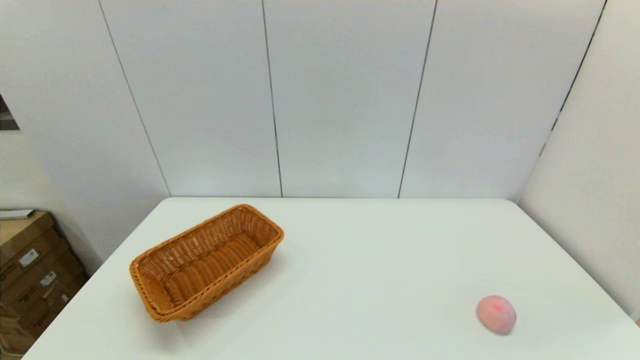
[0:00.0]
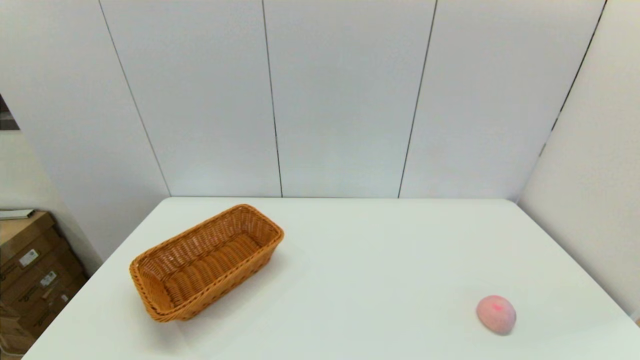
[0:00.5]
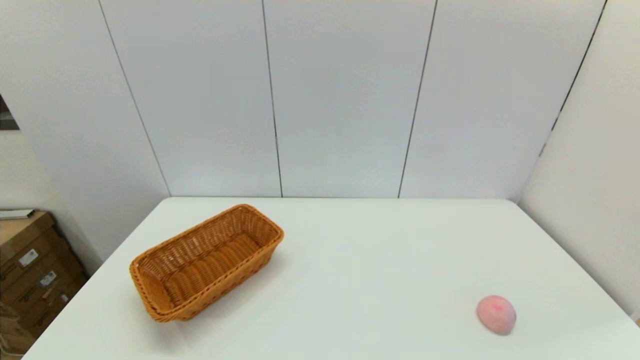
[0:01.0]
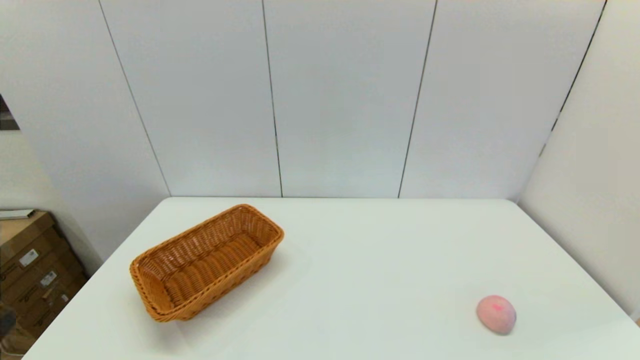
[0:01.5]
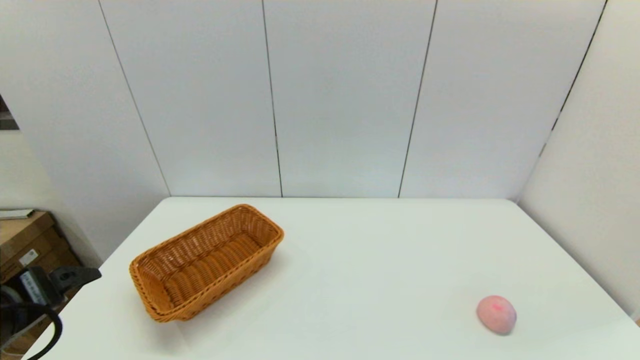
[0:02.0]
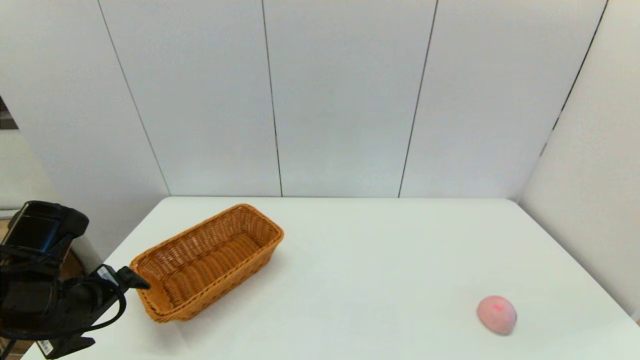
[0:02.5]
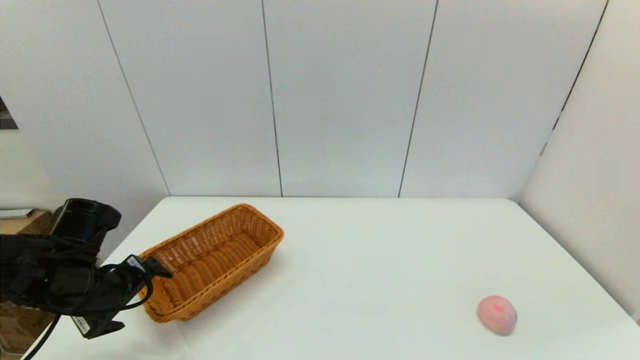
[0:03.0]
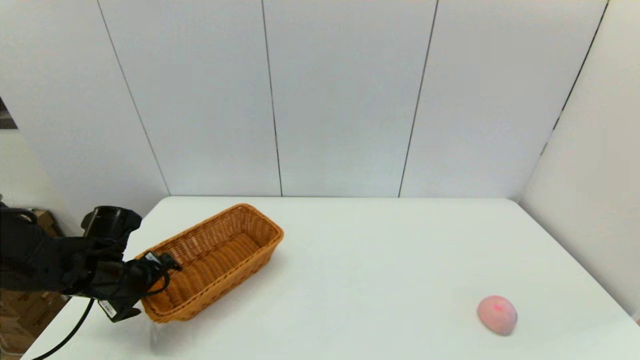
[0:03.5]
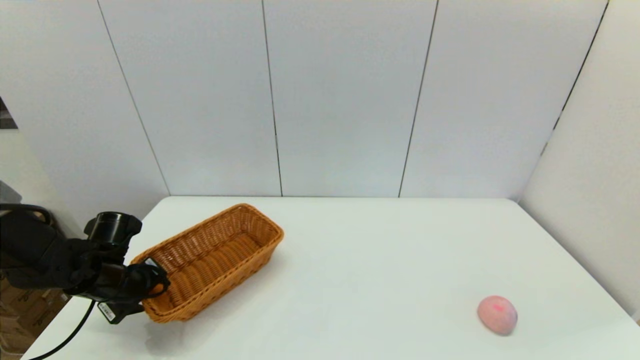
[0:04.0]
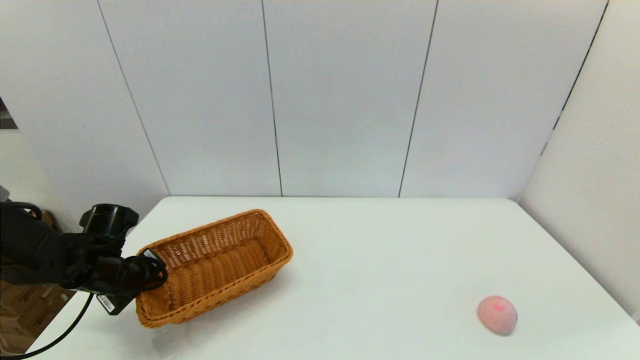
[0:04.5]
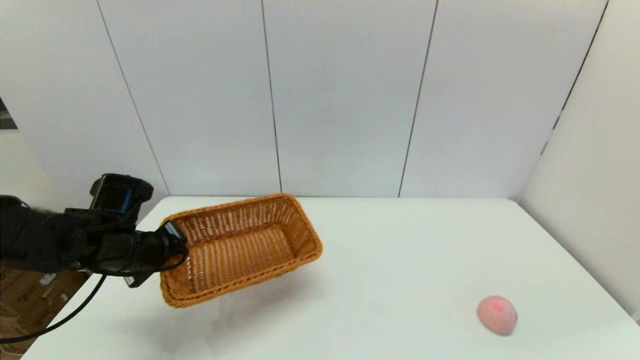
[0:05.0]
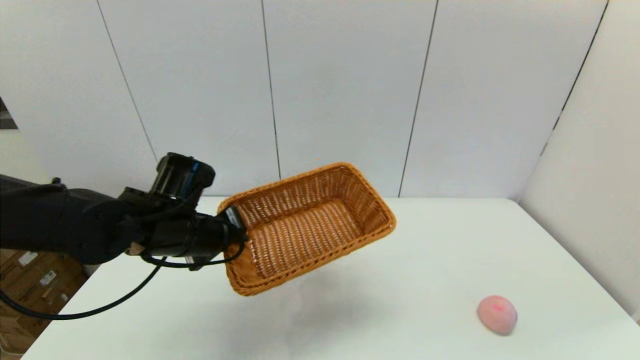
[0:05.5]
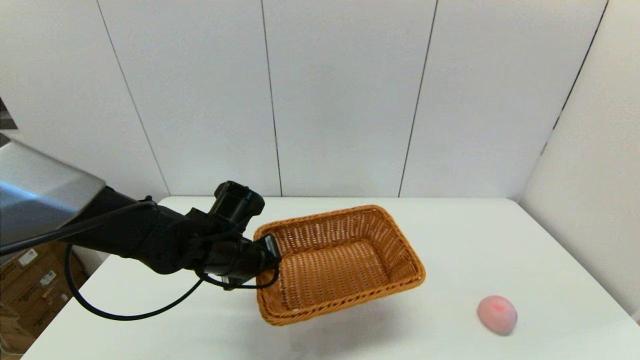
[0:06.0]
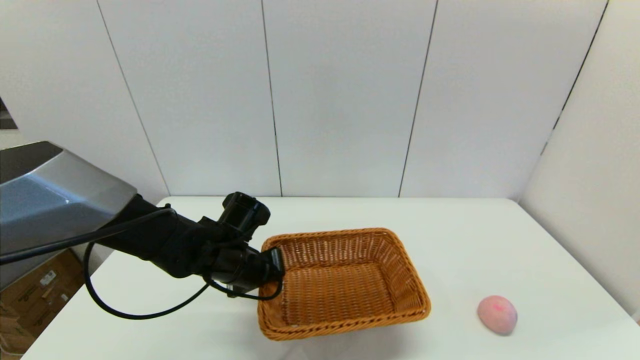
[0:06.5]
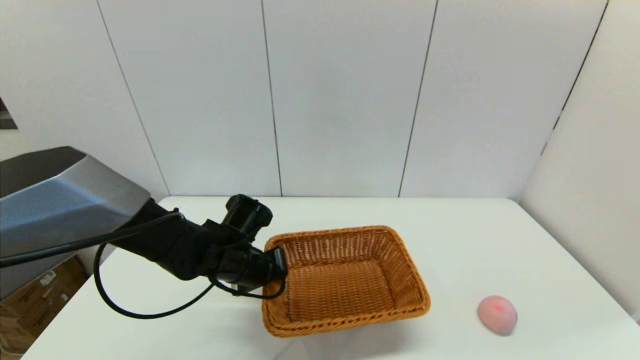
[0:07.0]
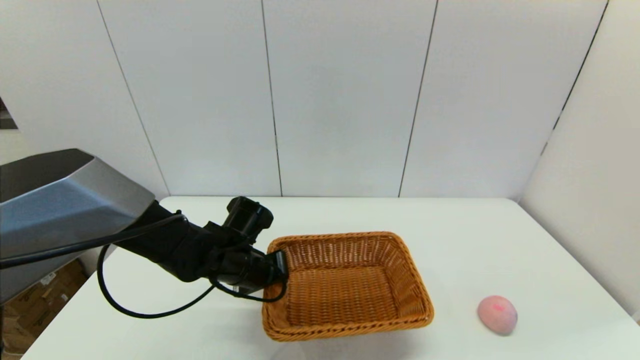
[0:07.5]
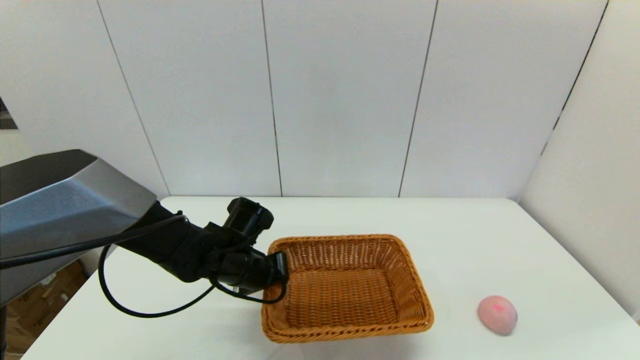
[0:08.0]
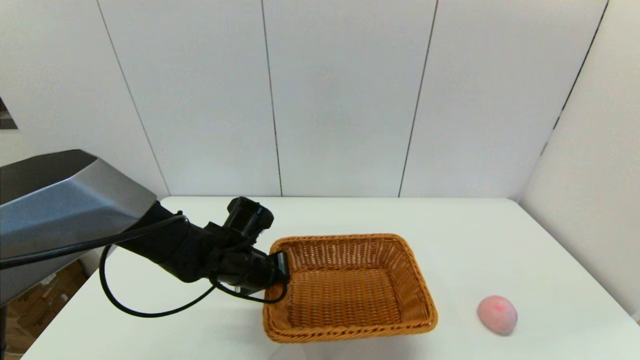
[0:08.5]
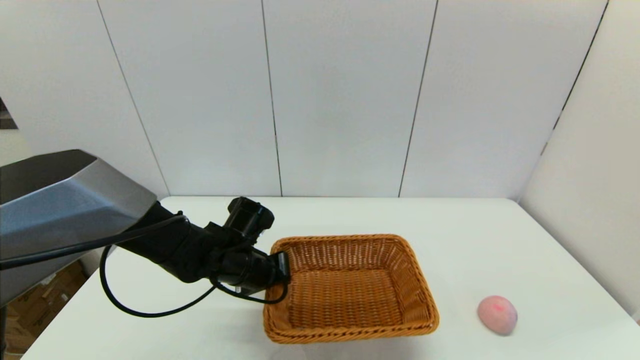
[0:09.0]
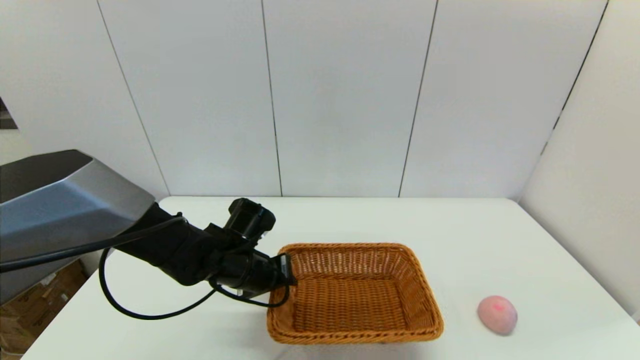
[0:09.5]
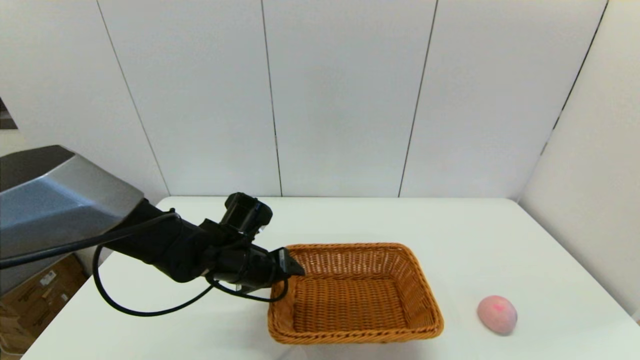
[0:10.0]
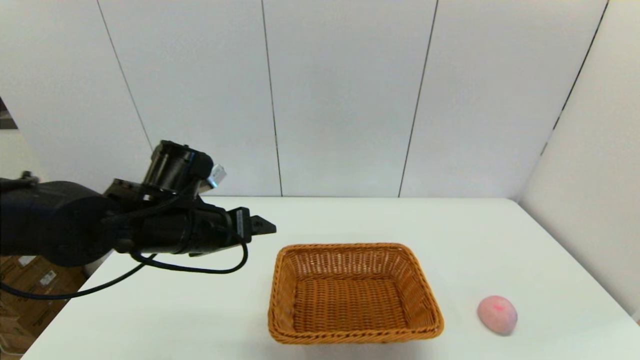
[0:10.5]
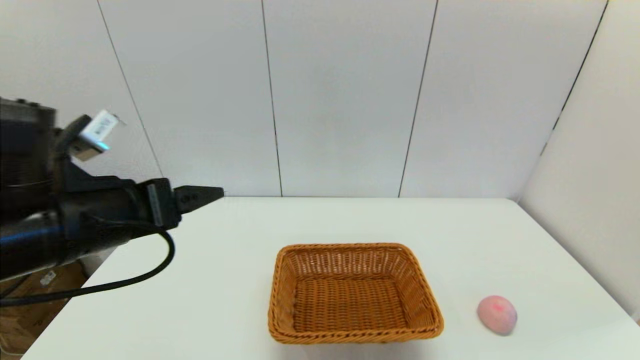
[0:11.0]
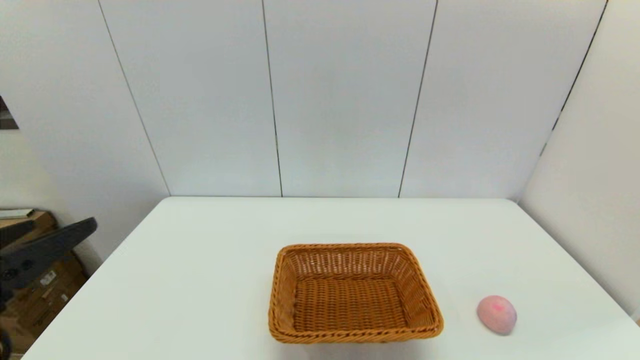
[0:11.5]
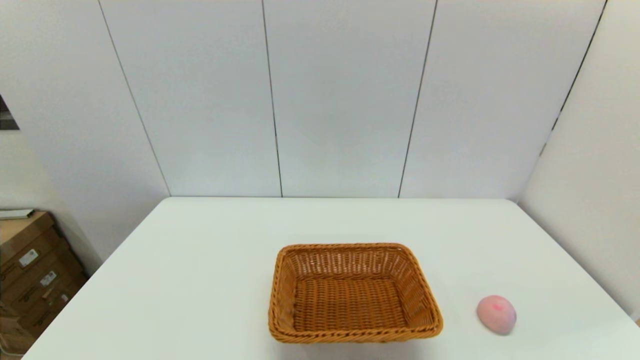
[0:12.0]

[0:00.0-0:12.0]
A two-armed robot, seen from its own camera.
Step, 0:00.0 to 0:04.0: Grasp the light basket with the left gripper.
Step, 0:04.5 to 0:09.5: Place the light basket on the middle of the table with the left gripper.
0:00.0 to 0:02.0: The left gripper is displaced forward and upward by approximately 20 cm.
0:02.0 to 0:04.0: The left gripper travels forward and downward by some 20 cm, and closes.
0:04.0 to 0:06.0: The left gripper heads to the right, covering some 20 cm, and closes.
0:06.0 to 0:08.0: The grippers make only small movements.
0:08.0 to 0:10.0: The left gripper opens up.
0:10.0 to 0:12.0: The left gripper shifts about 35 cm backward, to the left and upward.

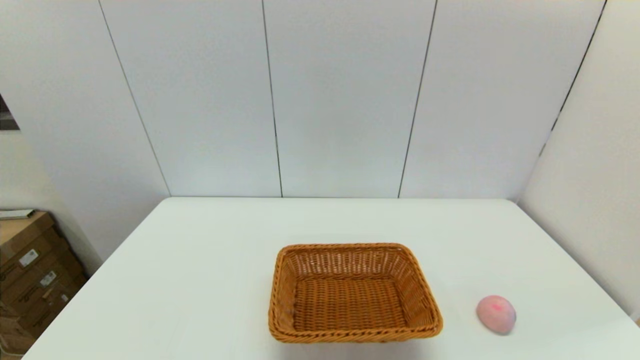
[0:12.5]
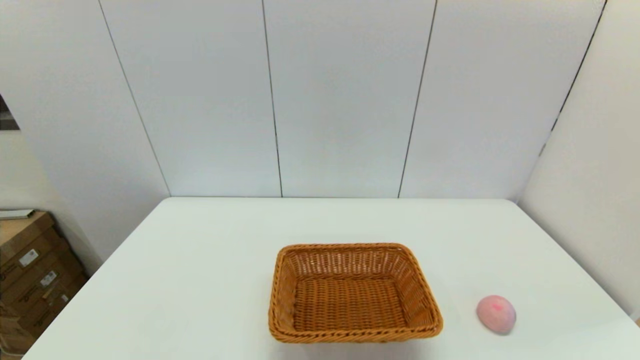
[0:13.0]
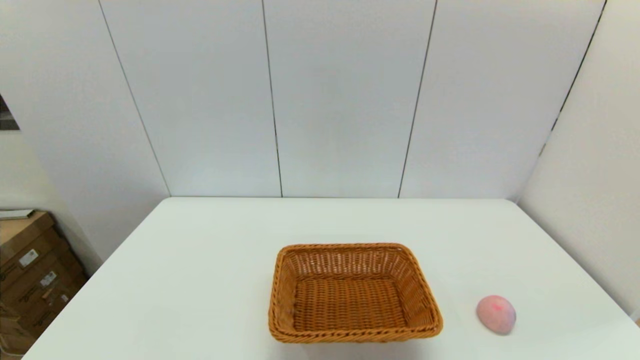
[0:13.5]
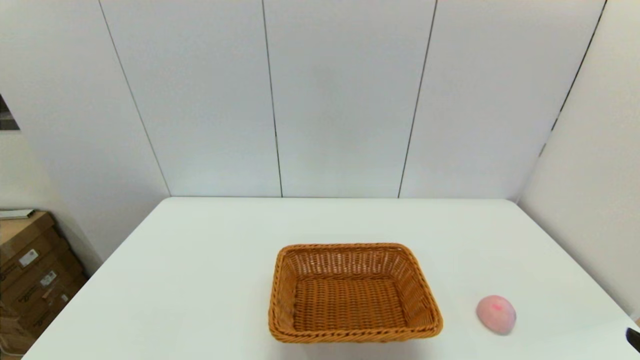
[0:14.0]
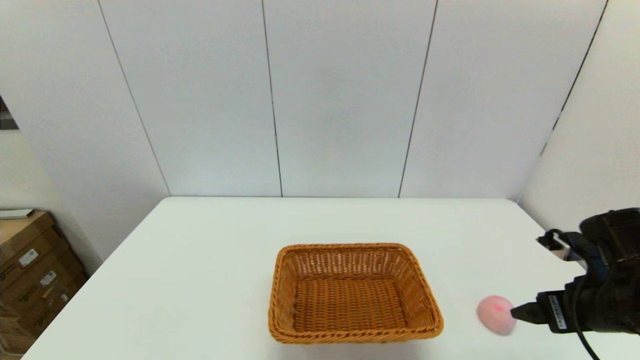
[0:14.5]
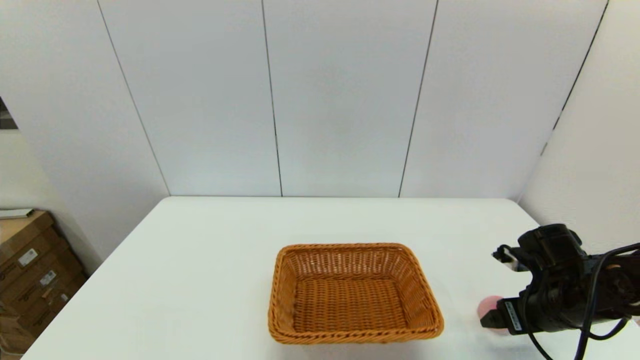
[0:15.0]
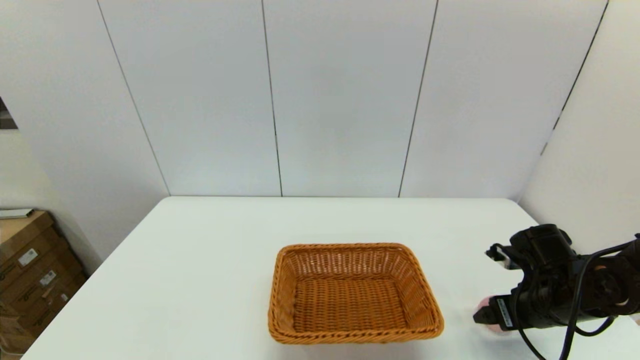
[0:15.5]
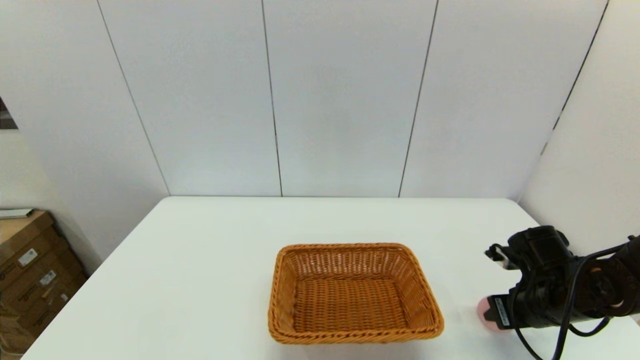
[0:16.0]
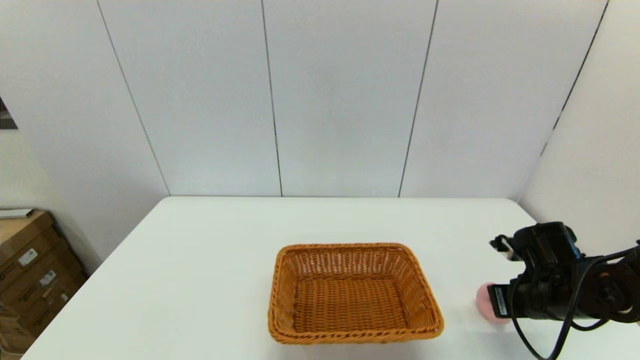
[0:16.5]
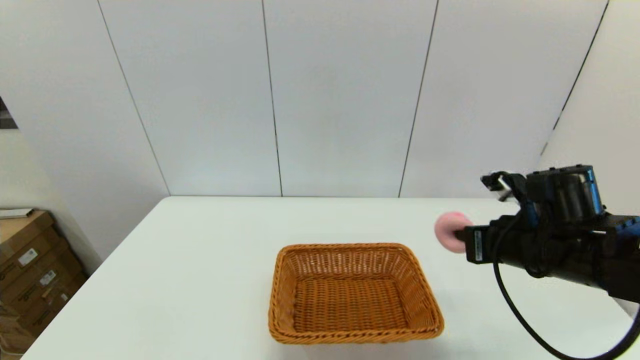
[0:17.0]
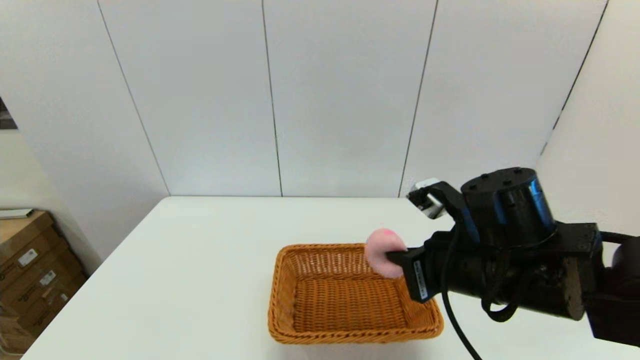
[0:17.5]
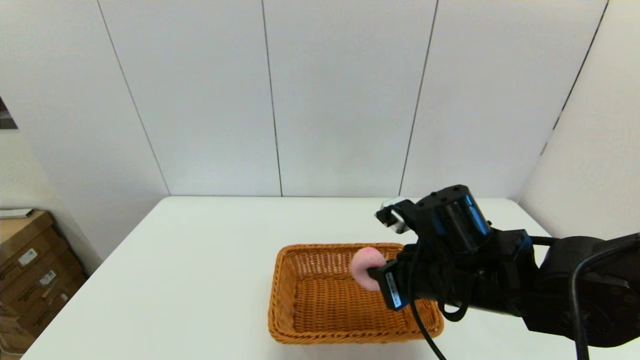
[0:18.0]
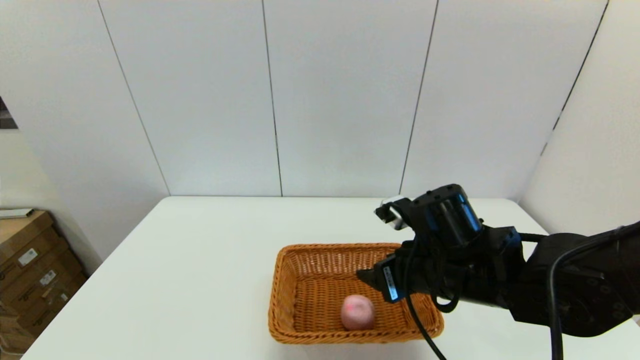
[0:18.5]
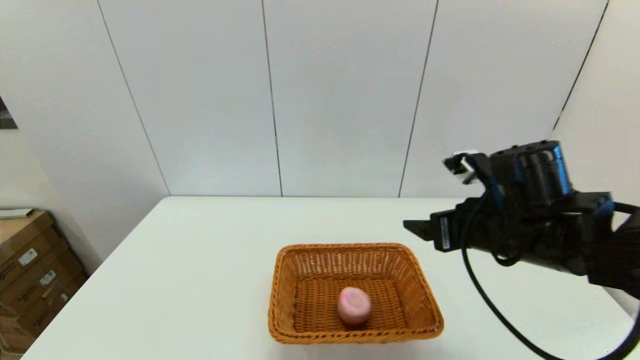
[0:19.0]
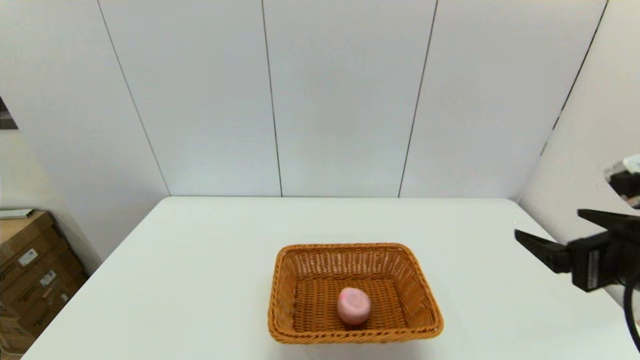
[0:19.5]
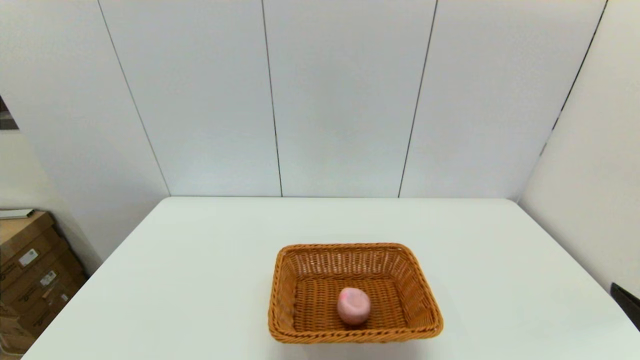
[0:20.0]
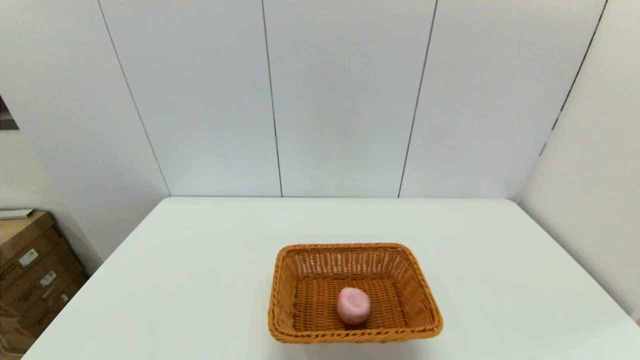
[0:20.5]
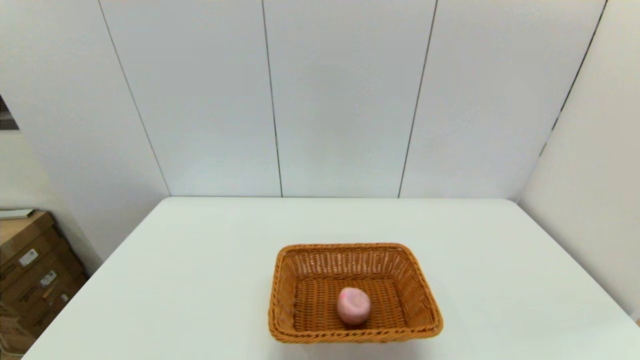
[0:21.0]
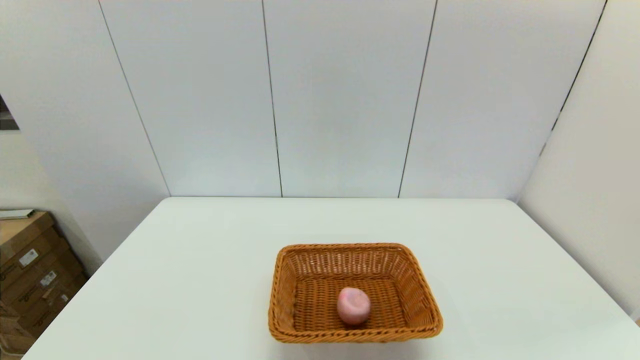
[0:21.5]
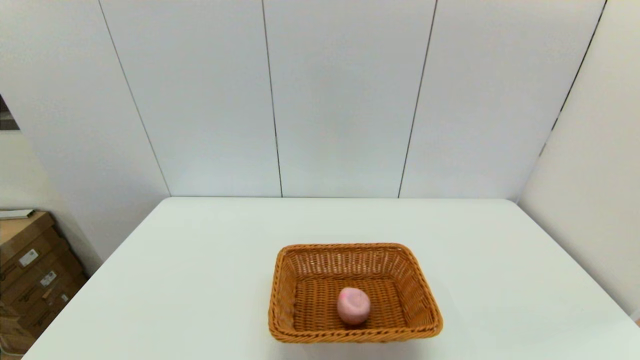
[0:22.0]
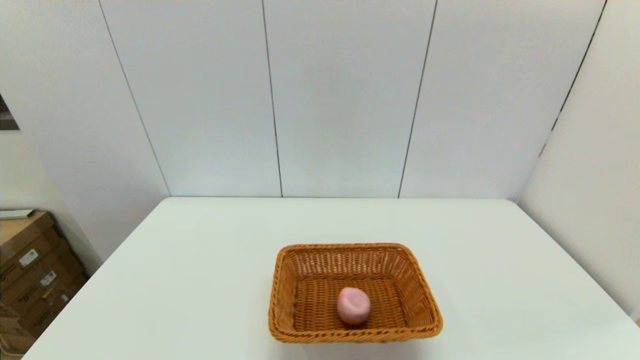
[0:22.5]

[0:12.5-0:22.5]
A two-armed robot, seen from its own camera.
Step, 0:12.5 to 0:16.0: Grasp the peach with the right gripper.
Step, 0:16.5 to 0:18.0: Place the peach into the light basket with the right gripper.
0:12.5 to 0:14.5: The right gripper is displaced forward by roughly 25 cm.
0:14.5 to 0:16.5: The right gripper heads downward and forward, covering roughly 10 cm, and closes its fingers.
0:16.5 to 0:18.5: The right gripper shifts some 20 cm to the left and upward, and opens its fingers.
0:18.5 to 0:20.5: The right gripper travels backward and to the right by roughly 30 cm.
